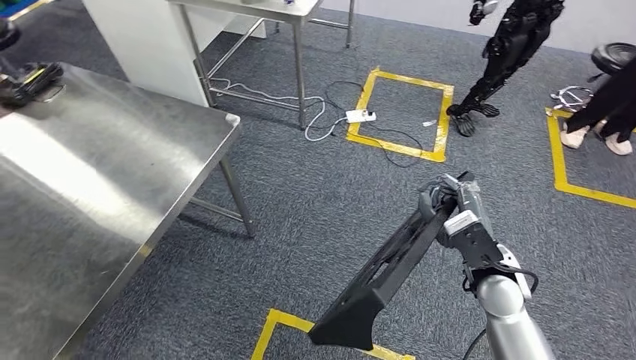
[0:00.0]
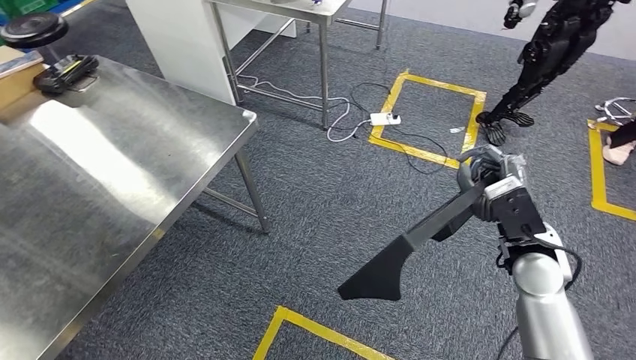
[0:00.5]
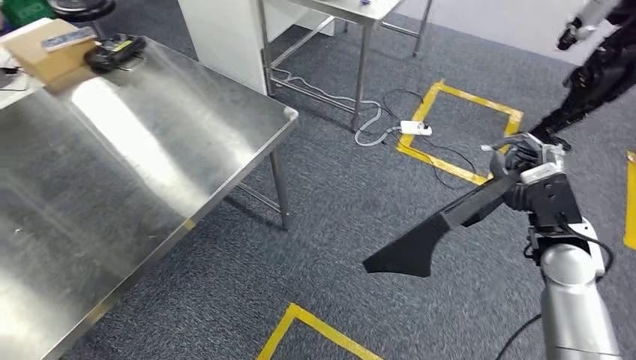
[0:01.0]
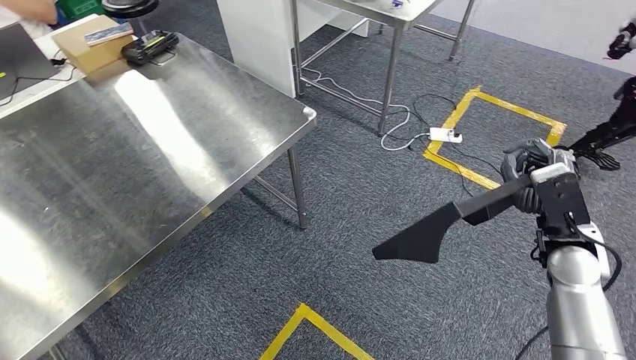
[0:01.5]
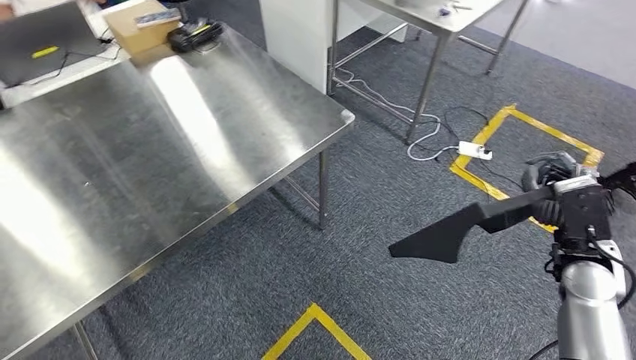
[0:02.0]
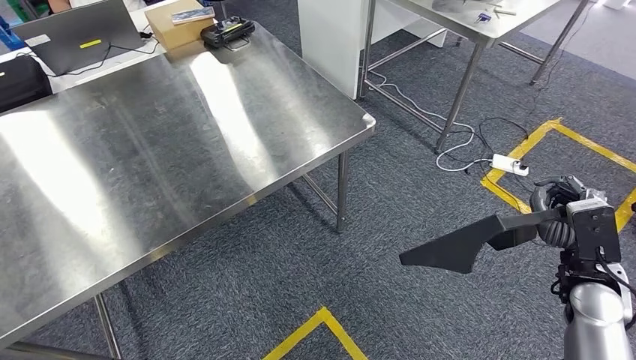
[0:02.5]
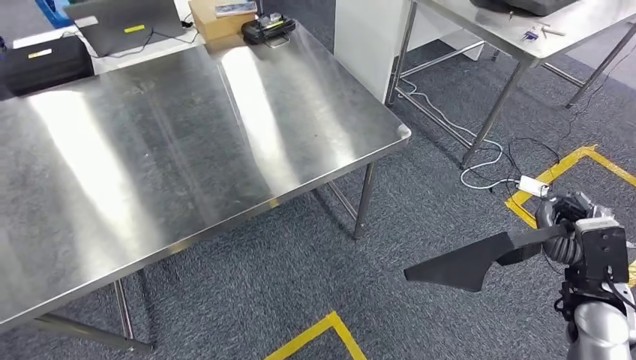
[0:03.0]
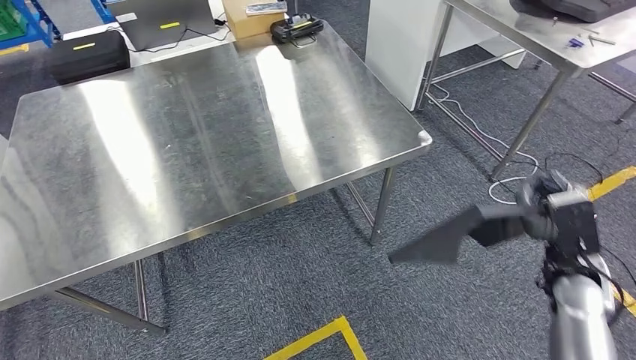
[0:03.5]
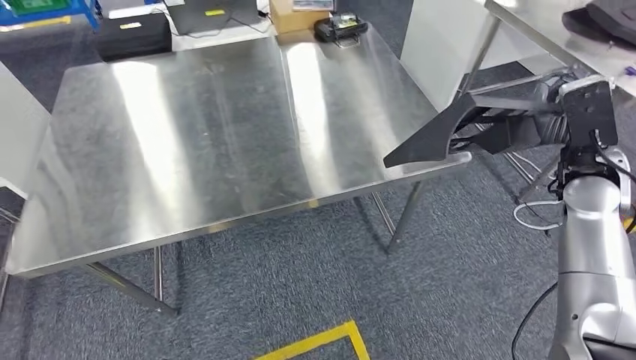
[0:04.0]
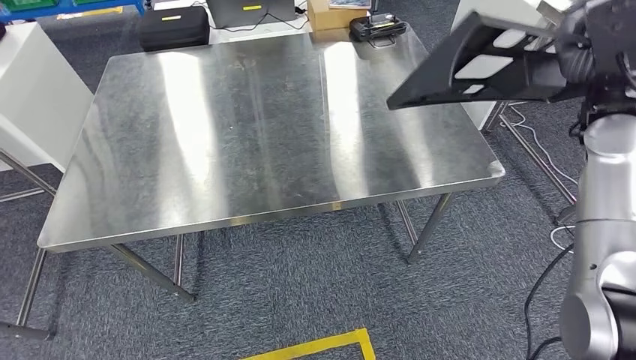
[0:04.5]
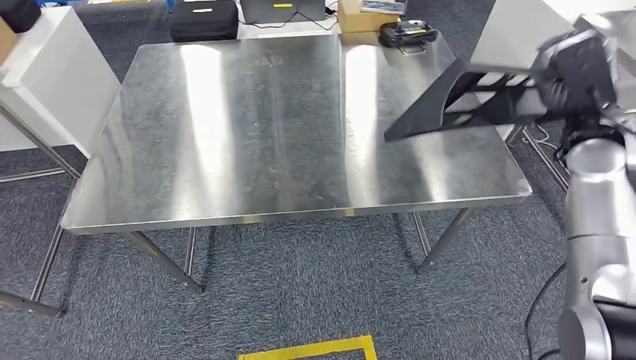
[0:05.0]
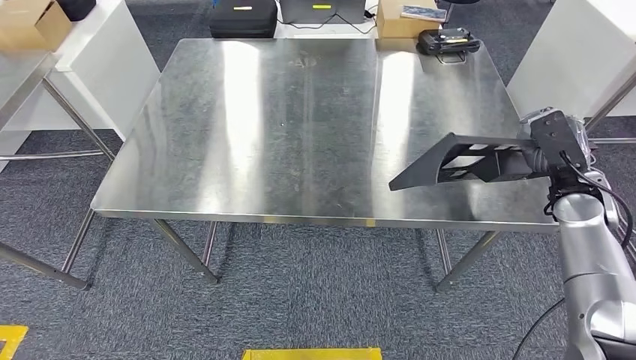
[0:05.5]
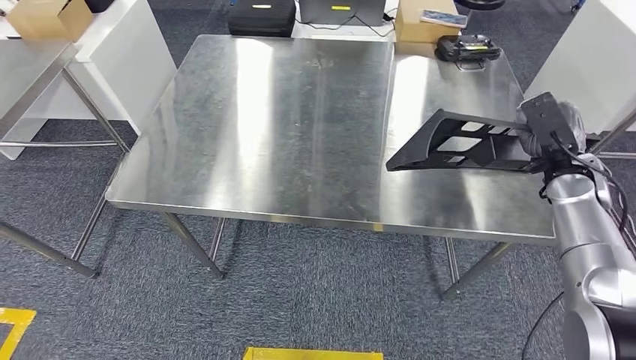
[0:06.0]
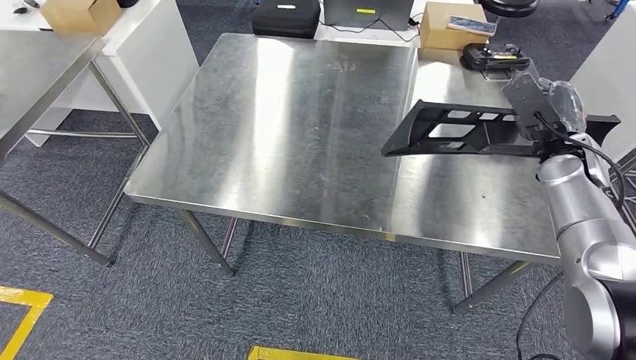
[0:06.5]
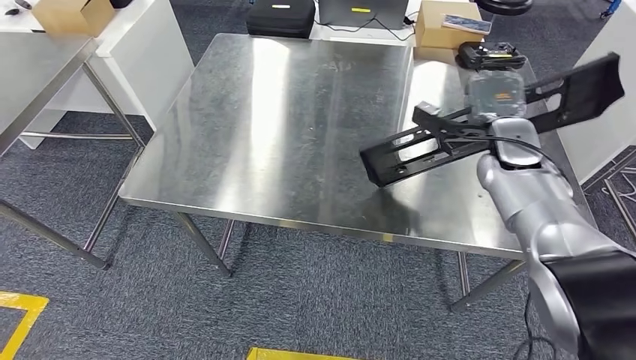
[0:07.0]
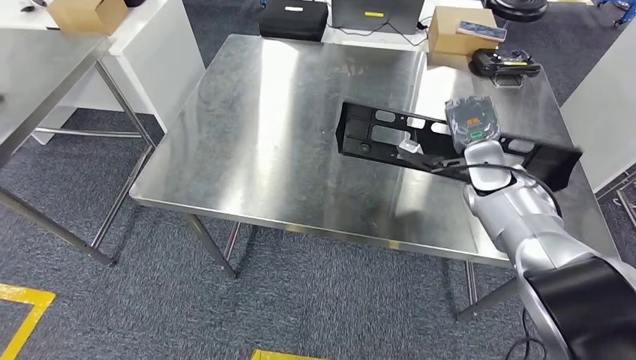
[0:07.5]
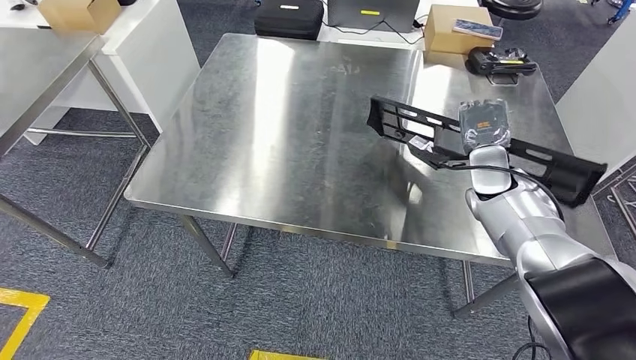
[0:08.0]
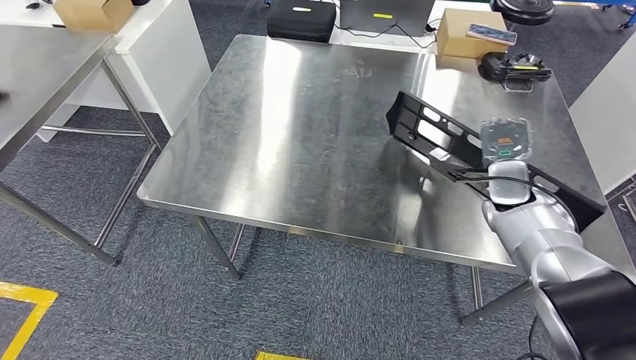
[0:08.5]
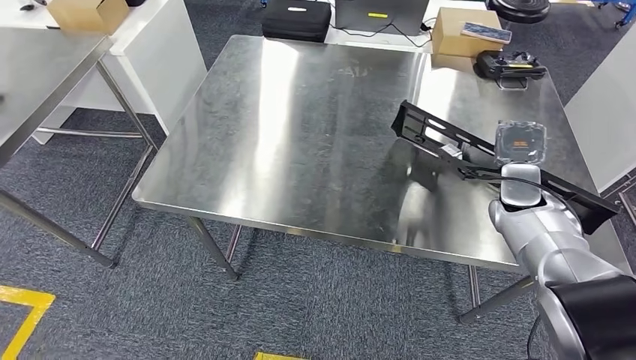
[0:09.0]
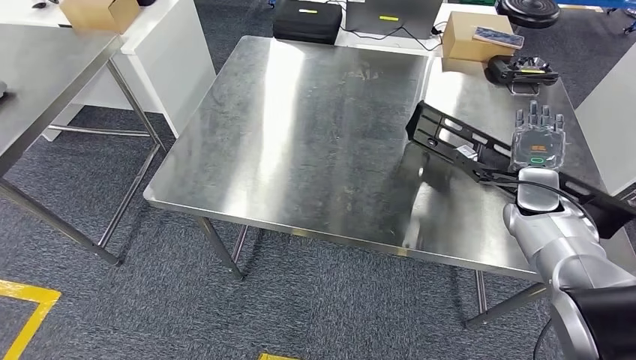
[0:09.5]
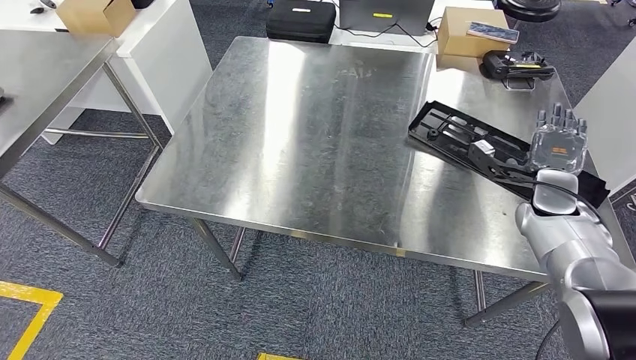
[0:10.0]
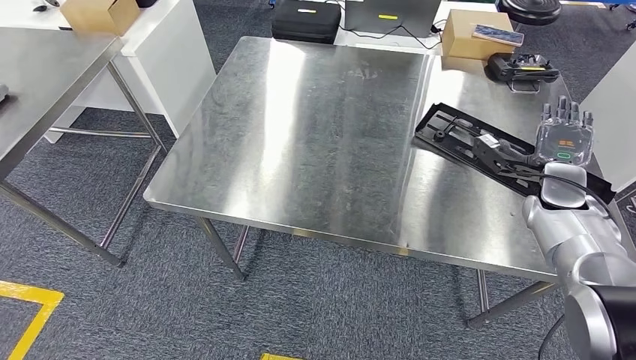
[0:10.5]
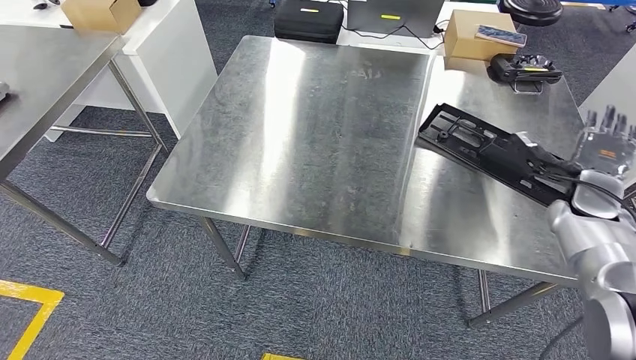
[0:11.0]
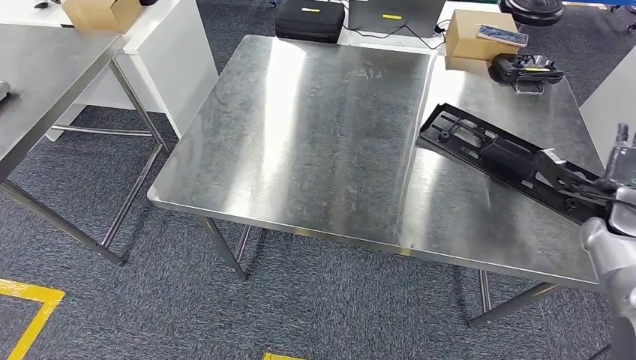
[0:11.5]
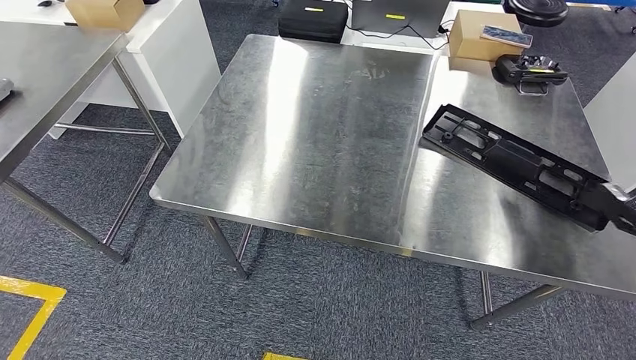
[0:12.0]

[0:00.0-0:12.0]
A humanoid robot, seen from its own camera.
Step, 0:00.0 to 0:04.0: Move the large material to the workbench.
Step, 0:04.5 to 0:12.0: Insert the large material into the corresponding slot on the workbench.

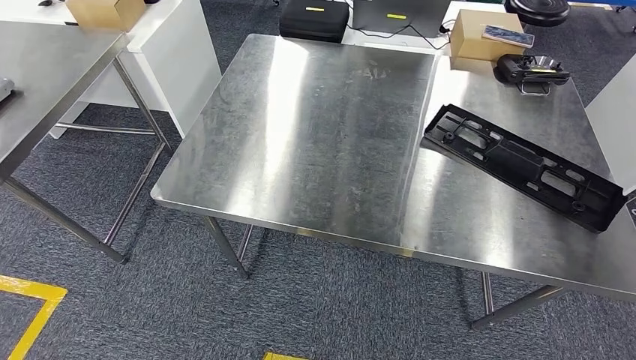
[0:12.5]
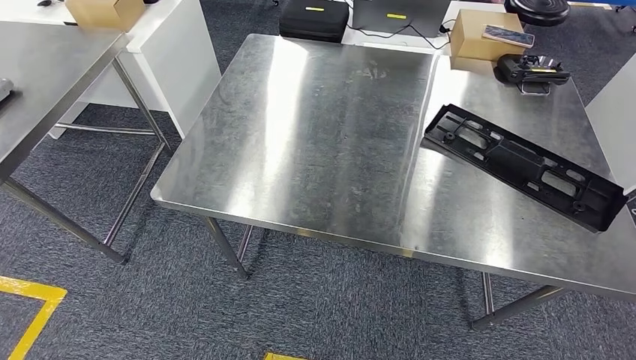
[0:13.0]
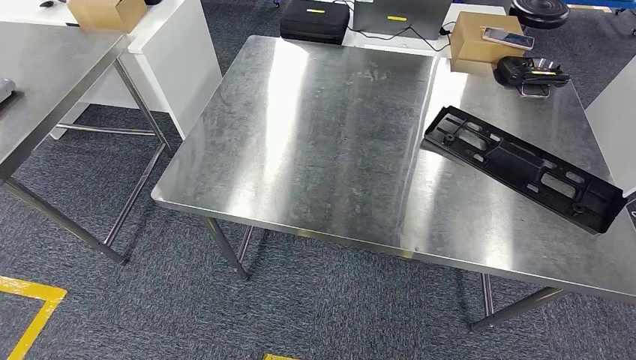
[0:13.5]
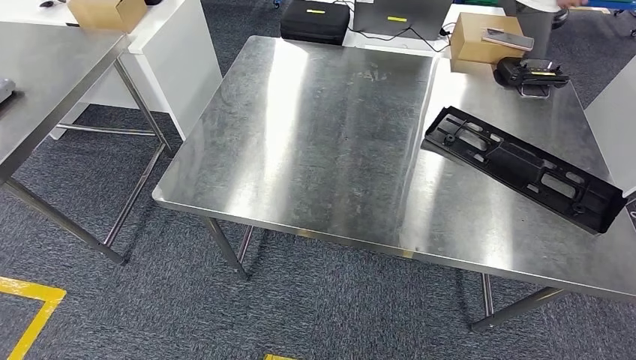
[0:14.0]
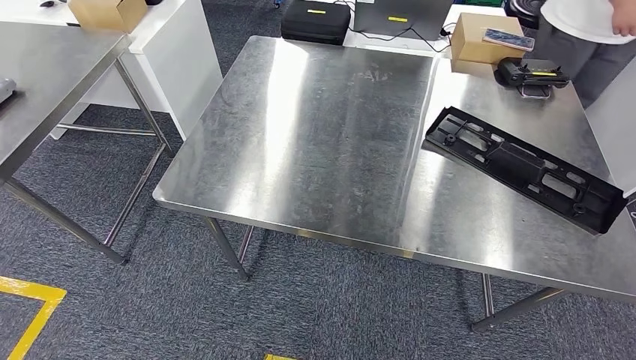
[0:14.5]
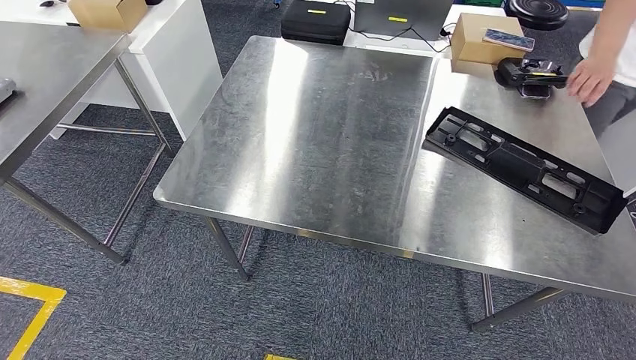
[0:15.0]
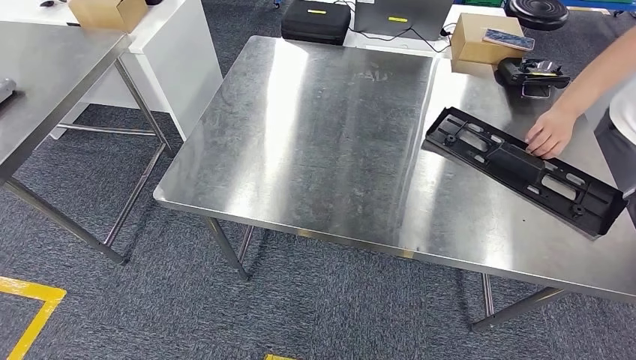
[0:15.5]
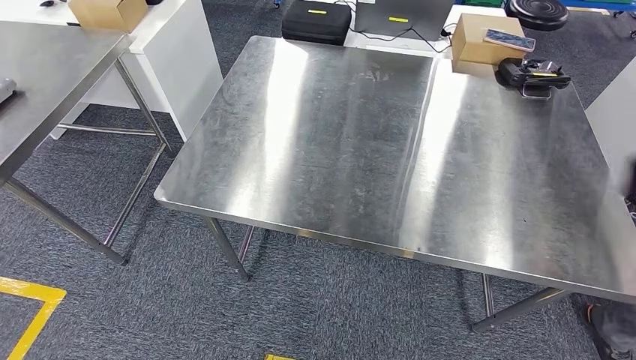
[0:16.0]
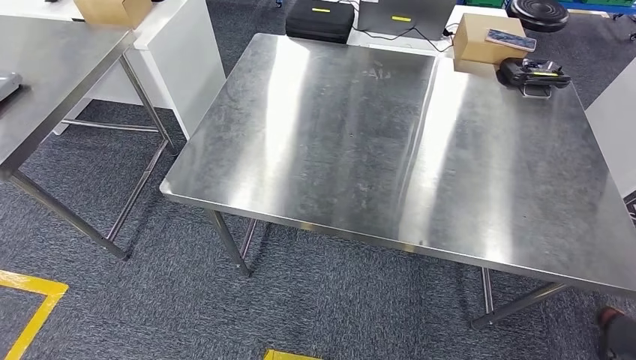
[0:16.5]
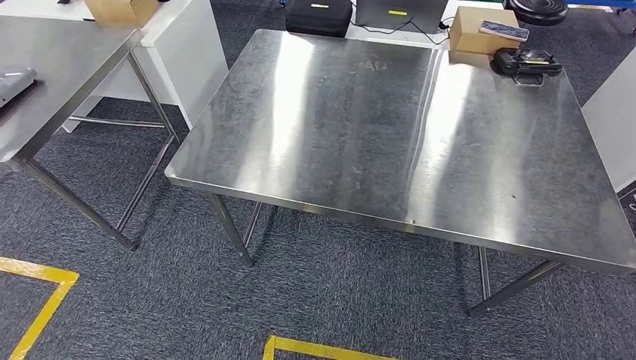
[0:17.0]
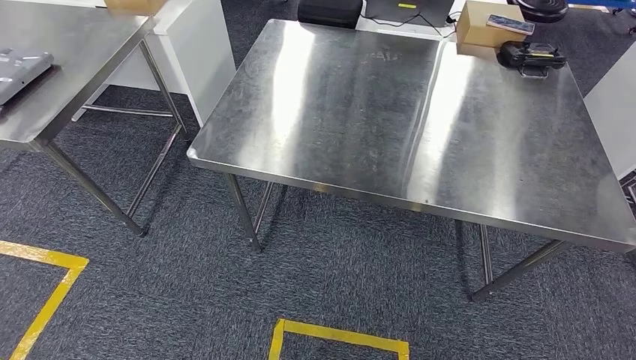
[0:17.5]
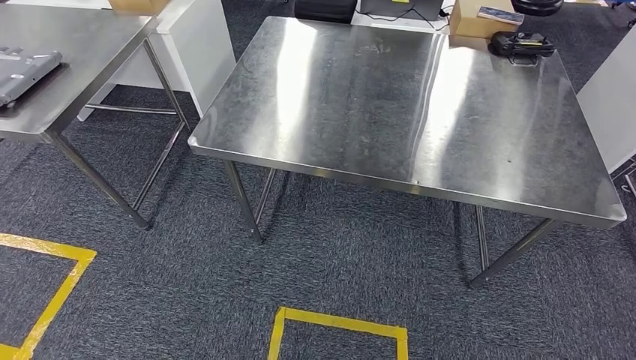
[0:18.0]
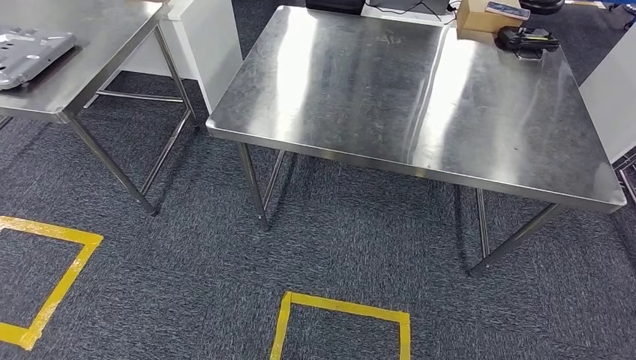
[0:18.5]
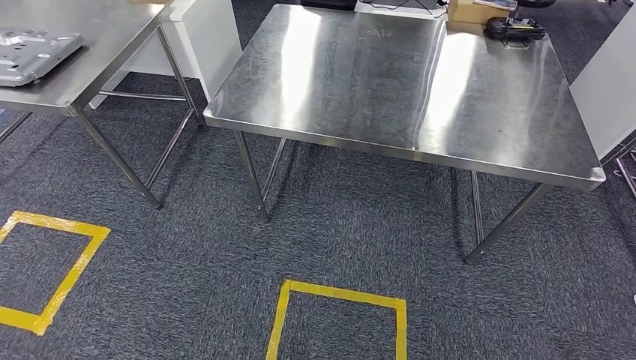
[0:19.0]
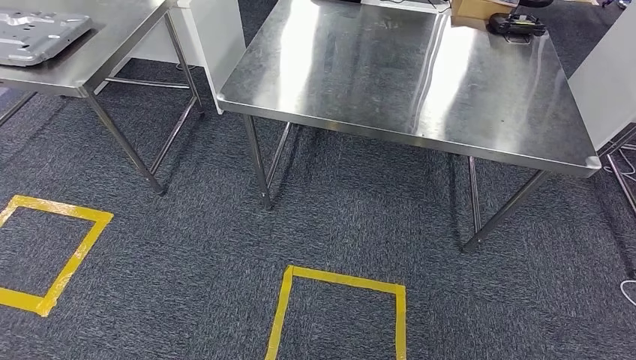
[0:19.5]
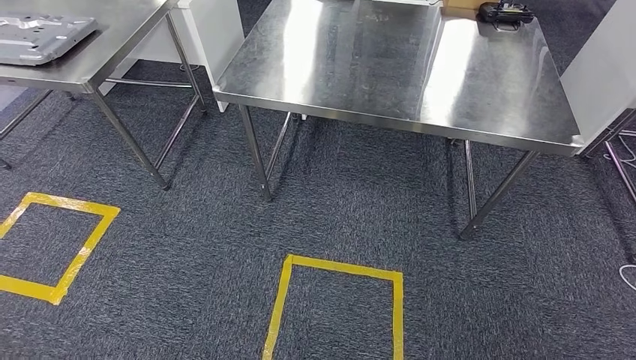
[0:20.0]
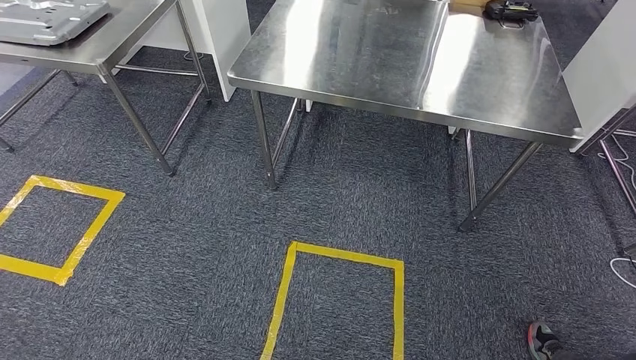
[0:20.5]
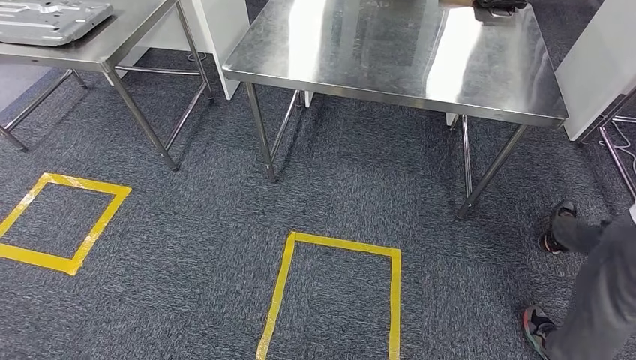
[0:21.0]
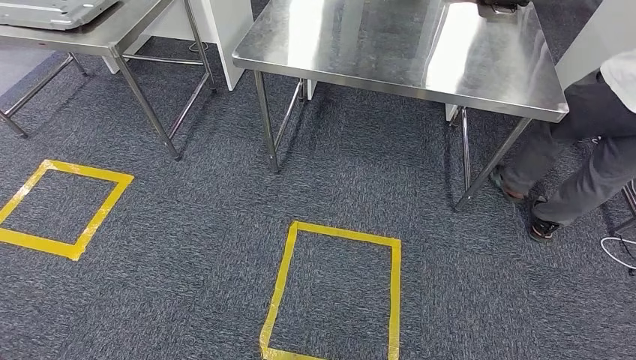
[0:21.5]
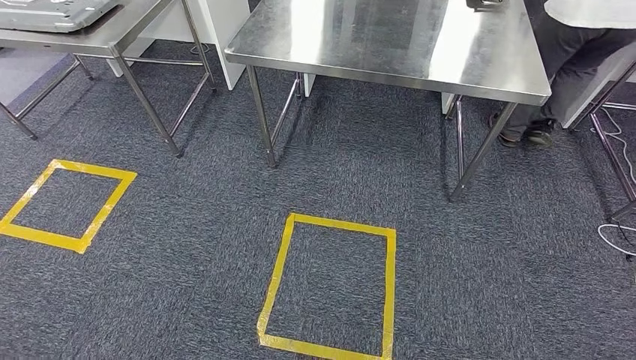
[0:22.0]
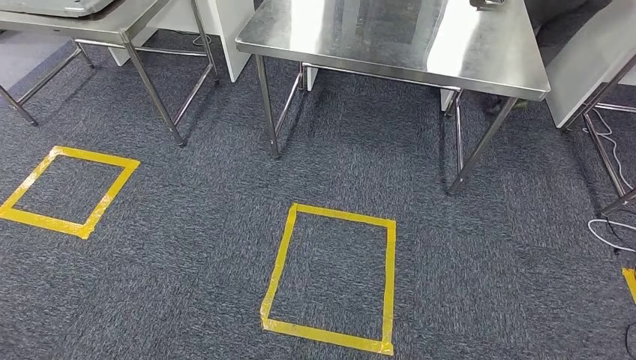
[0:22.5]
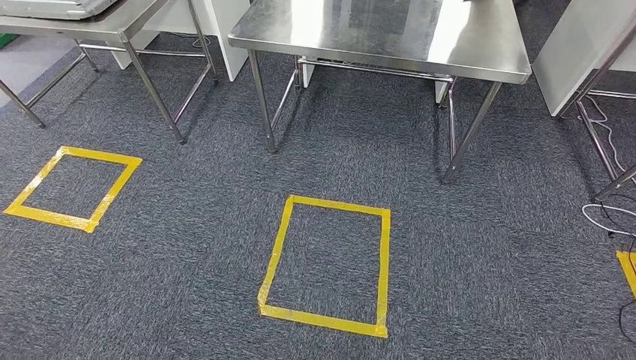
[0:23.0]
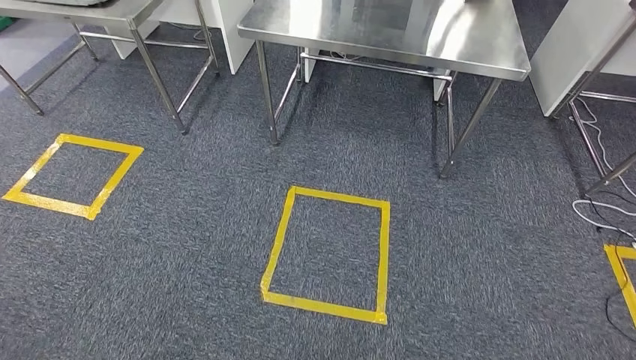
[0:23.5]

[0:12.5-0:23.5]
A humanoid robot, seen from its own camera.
0:12.5 to 0:14.5: The right hand shifts approximately 50 cm downward, to the left and backward.
0:14.5 to 0:16.0: The right hand travels to the left by roughly 10 cm.
